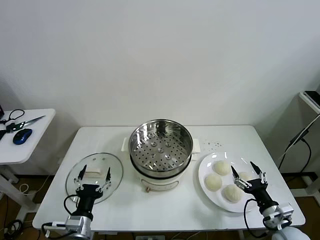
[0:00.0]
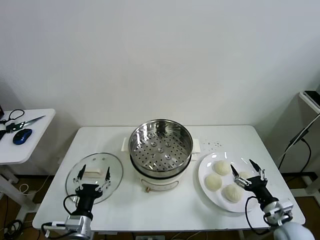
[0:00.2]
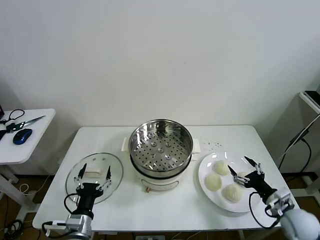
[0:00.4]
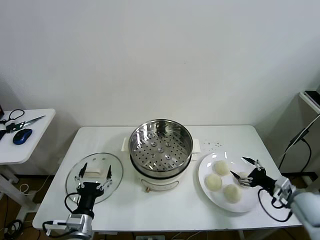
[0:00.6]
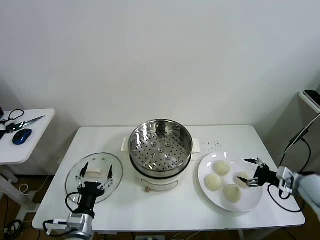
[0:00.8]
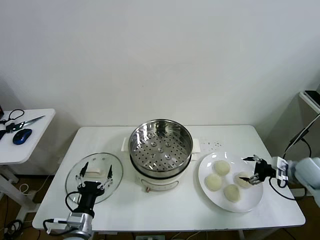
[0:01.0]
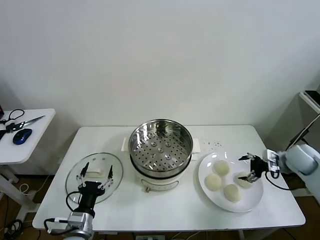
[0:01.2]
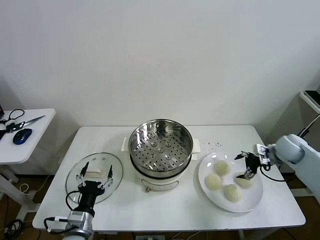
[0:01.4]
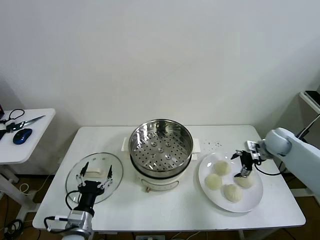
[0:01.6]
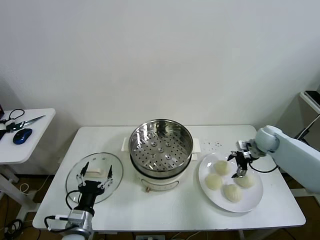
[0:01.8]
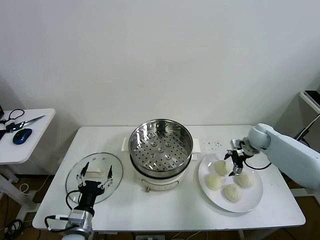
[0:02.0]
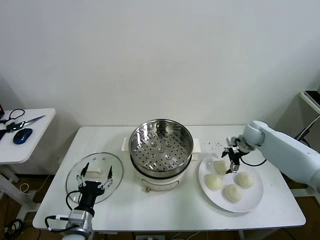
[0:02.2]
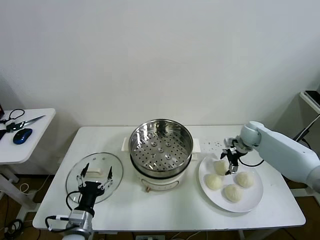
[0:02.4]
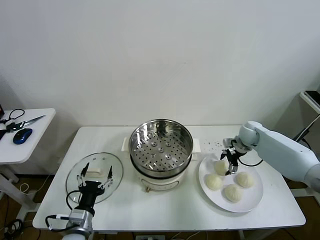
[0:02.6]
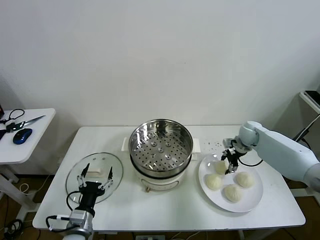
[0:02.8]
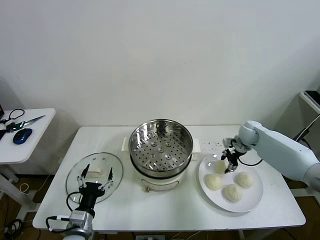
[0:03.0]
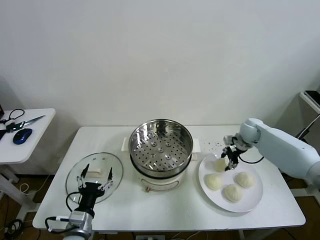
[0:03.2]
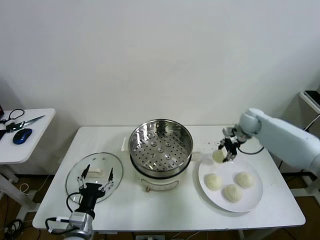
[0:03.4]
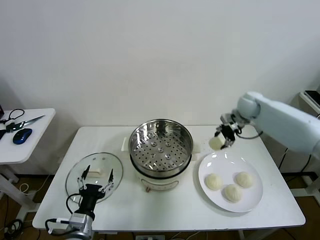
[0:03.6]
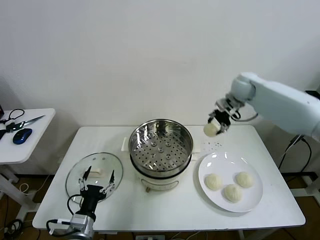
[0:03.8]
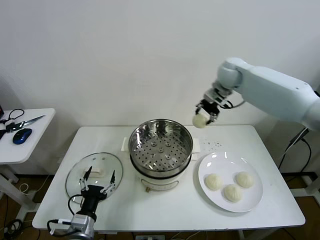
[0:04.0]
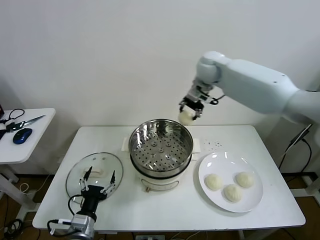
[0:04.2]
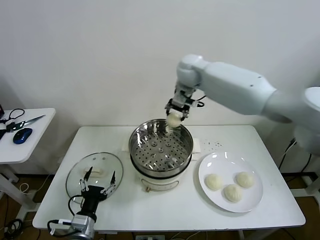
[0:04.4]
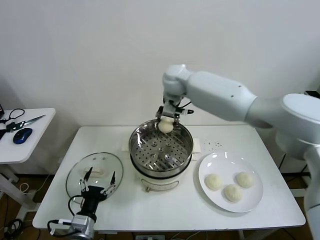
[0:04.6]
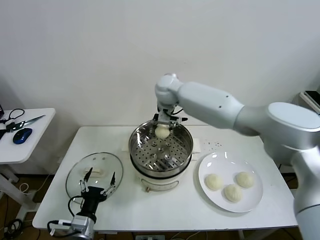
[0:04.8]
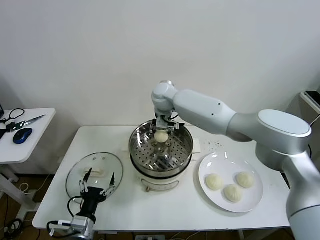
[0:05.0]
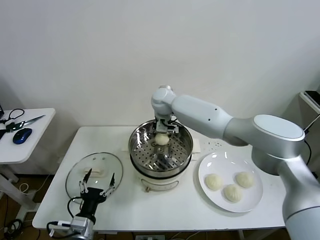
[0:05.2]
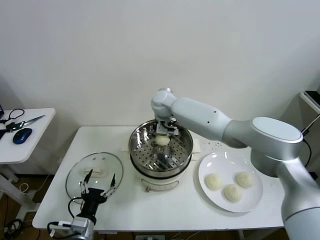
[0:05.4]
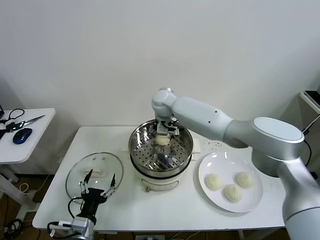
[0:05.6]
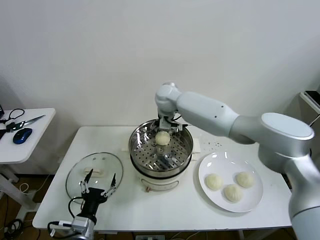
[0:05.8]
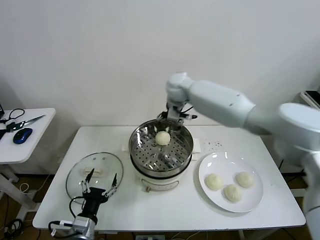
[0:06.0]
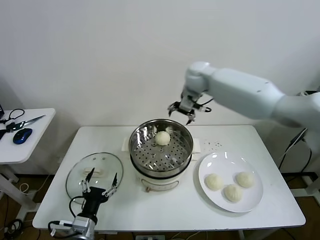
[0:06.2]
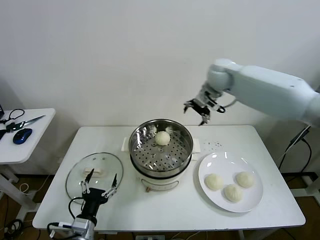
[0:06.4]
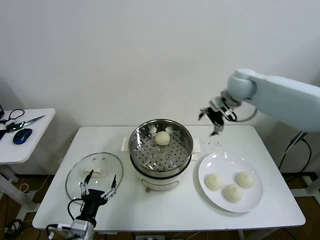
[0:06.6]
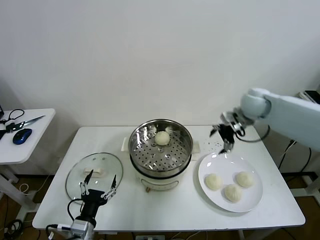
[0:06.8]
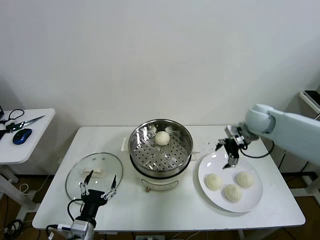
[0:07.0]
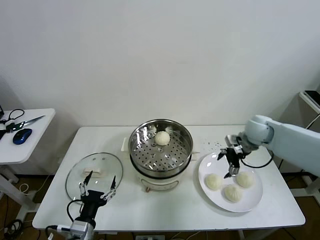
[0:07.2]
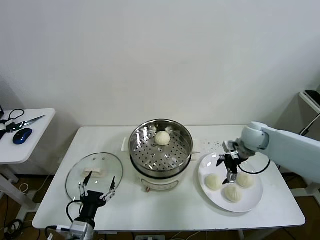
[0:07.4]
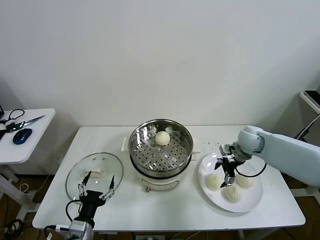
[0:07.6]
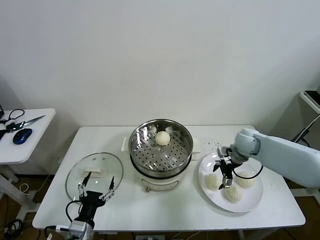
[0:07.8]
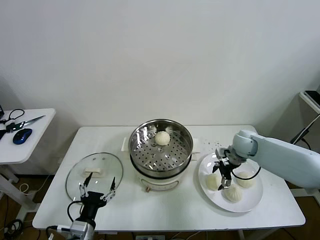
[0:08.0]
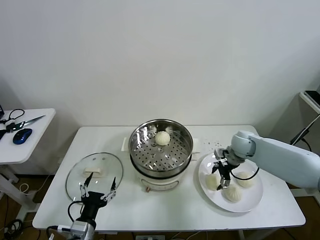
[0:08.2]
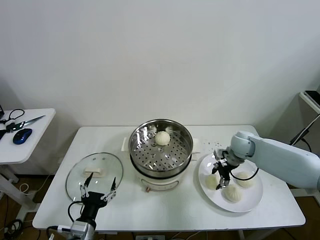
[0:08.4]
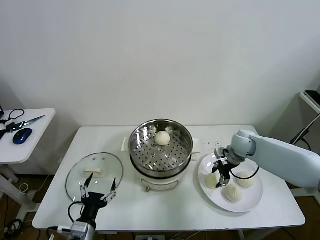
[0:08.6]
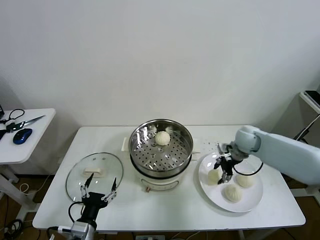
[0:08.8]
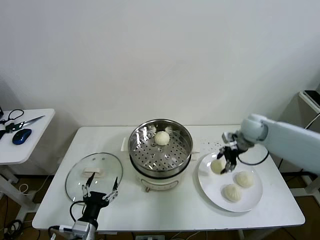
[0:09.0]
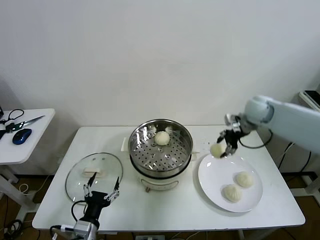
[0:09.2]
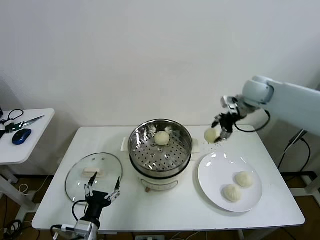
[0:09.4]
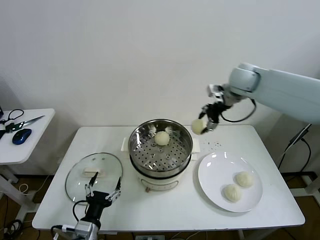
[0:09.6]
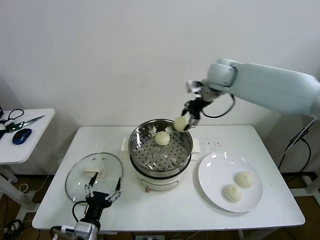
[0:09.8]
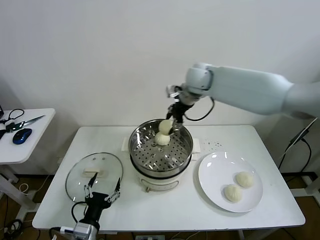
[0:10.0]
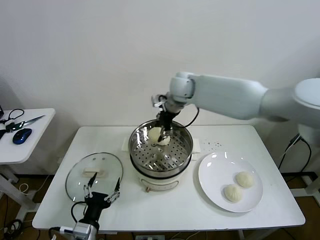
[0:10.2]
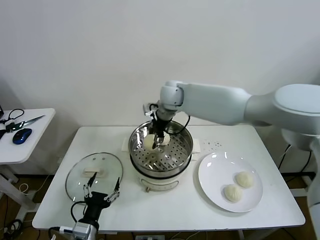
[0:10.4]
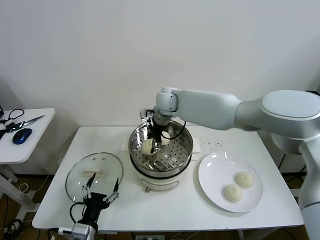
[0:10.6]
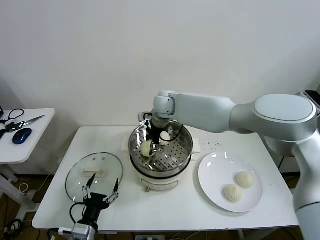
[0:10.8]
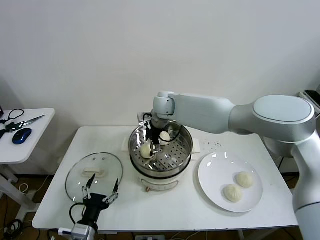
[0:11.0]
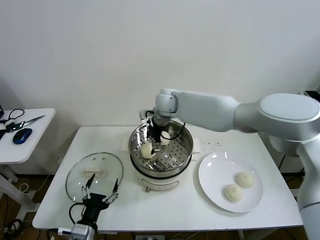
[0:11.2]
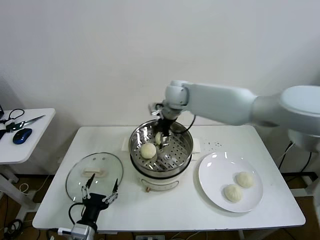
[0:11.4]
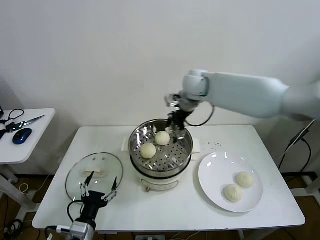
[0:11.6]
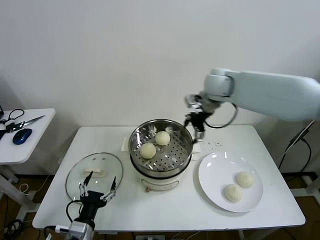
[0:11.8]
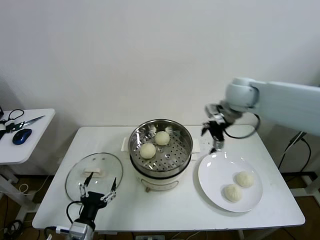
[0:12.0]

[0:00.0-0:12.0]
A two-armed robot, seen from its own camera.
Task of the whole recording: take steamed baozi put them in steamer then cover it.
Step, 0:00.0 to 0:02.8: Grasp the baozi in the plate with right gripper.
Step, 0:03.0 to 0:05.8: Place the baozi on the steamer with right gripper.
Step, 0:06.0 to 0:08.4: Grasp the baozi in the plate with right gripper.
Step, 0:08.6 to 0:11.0: Place the baozi on the steamer with right gripper.
0:01.6 to 0:03.0: The right gripper moves to the left and forward, approximately 10 cm, and closes.
0:03.0 to 0:04.4: The right gripper heads to the left and upward, covering about 40 cm.
0:04.4 to 0:06.0: The right gripper reaches roughly 10 cm downward, then returns, and opens up.
0:06.0 to 0:07.6: The right gripper shifts roughly 30 cm to the right, downward and backward.
0:07.6 to 0:09.0: The right gripper is displaced upward by about 5 cm, and closes.
0:09.0 to 0:10.4: The right gripper goes roughly 30 cm to the left.
0:10.4 to 0:12.0: The right gripper shifts some 25 cm to the right, and opens up.

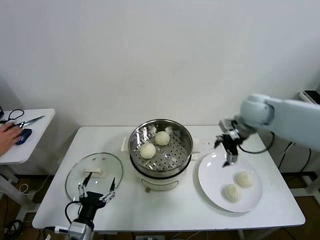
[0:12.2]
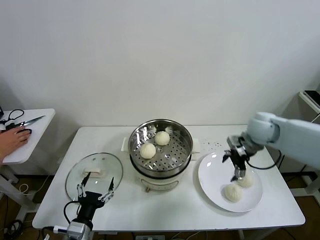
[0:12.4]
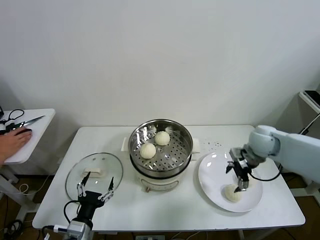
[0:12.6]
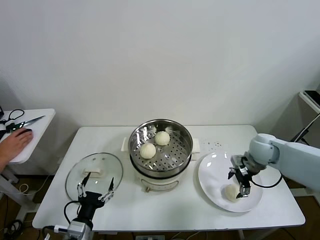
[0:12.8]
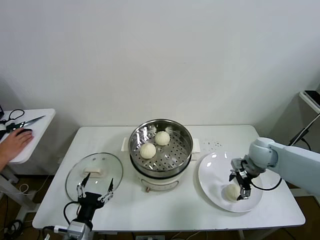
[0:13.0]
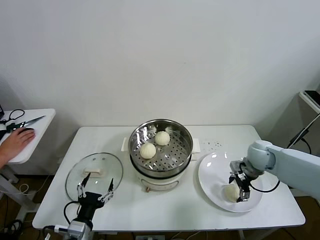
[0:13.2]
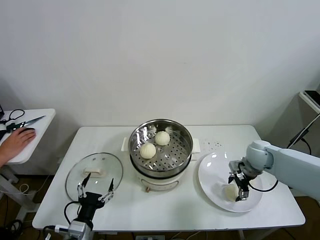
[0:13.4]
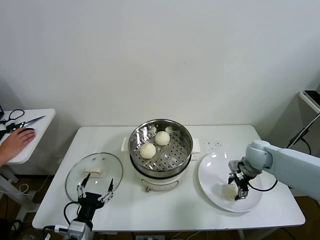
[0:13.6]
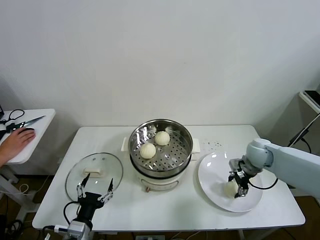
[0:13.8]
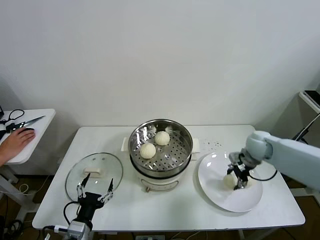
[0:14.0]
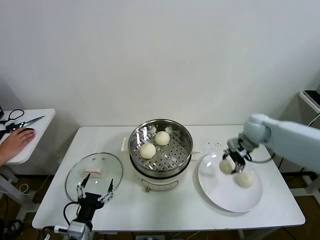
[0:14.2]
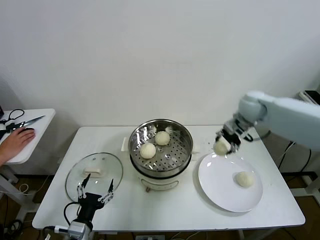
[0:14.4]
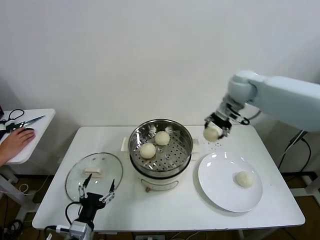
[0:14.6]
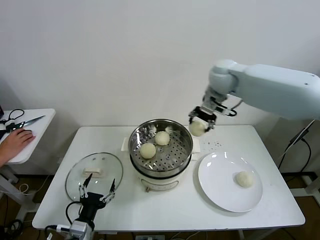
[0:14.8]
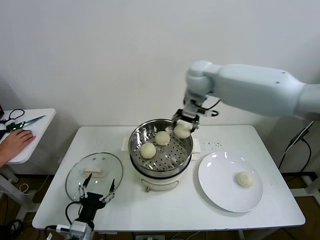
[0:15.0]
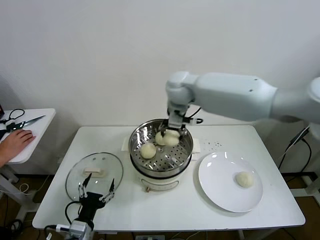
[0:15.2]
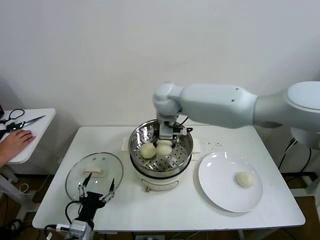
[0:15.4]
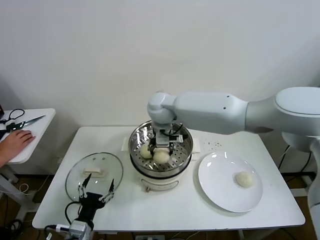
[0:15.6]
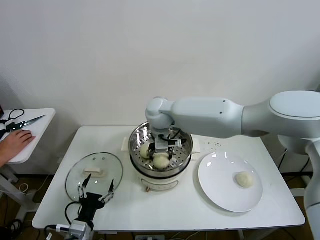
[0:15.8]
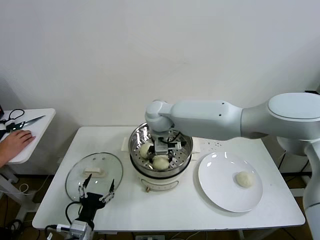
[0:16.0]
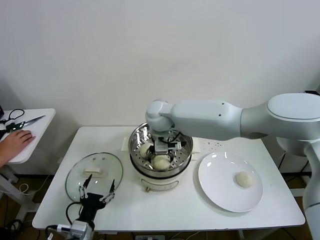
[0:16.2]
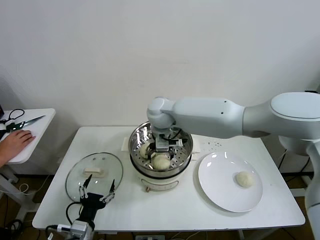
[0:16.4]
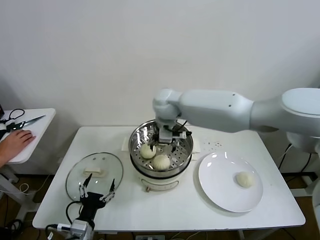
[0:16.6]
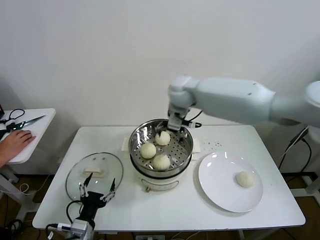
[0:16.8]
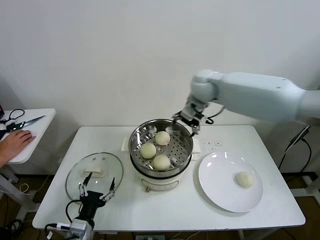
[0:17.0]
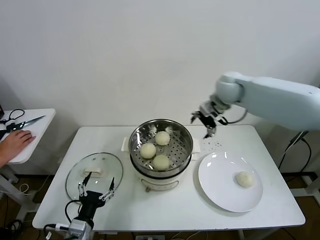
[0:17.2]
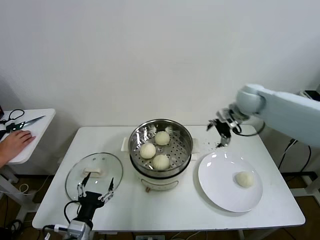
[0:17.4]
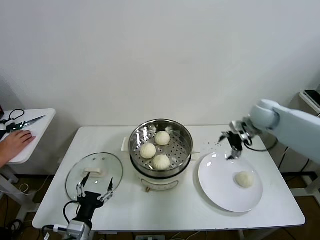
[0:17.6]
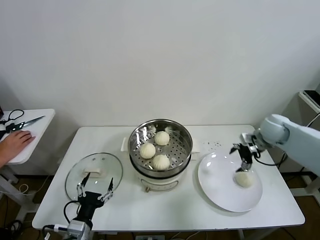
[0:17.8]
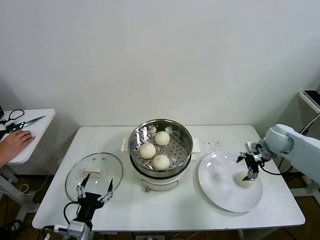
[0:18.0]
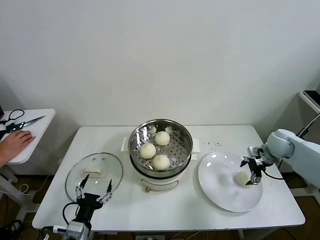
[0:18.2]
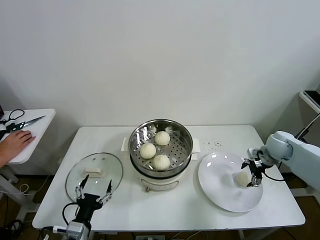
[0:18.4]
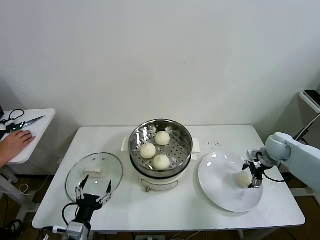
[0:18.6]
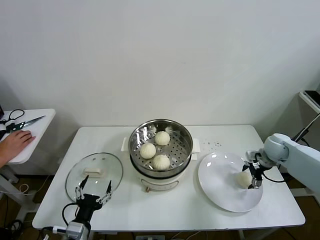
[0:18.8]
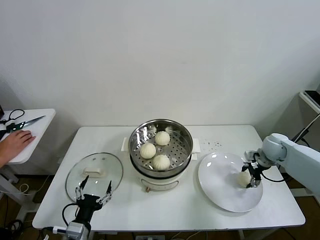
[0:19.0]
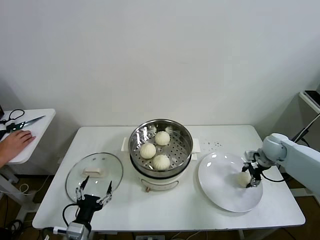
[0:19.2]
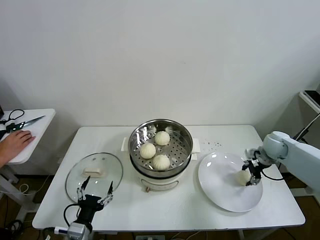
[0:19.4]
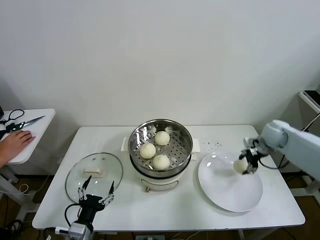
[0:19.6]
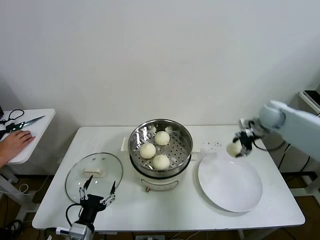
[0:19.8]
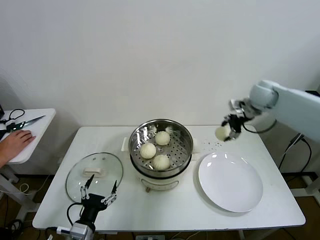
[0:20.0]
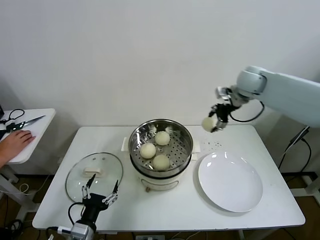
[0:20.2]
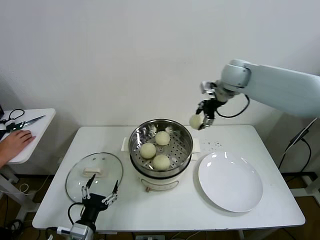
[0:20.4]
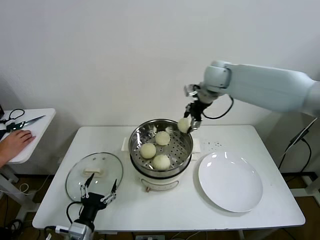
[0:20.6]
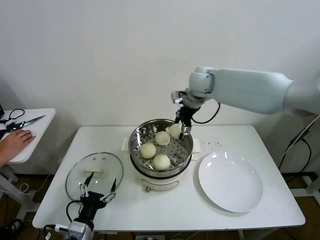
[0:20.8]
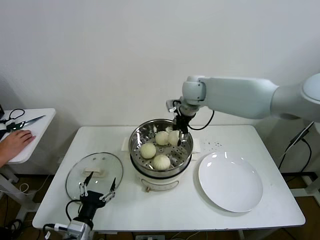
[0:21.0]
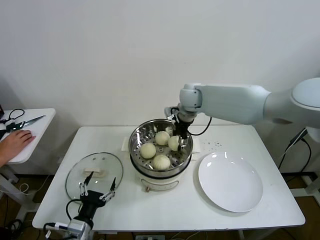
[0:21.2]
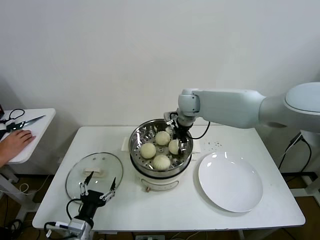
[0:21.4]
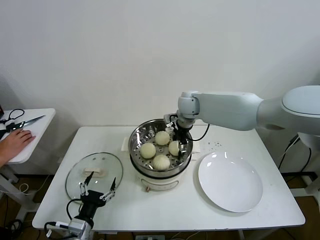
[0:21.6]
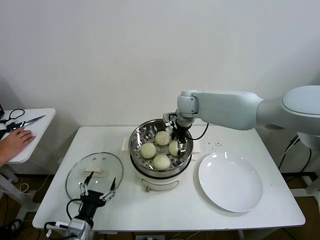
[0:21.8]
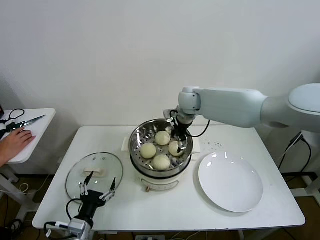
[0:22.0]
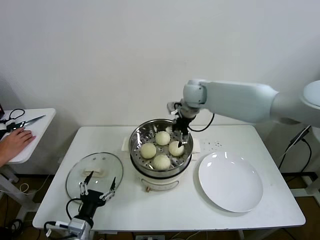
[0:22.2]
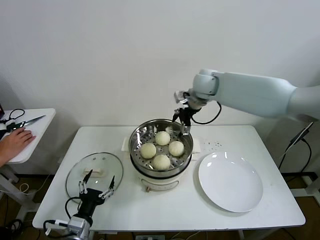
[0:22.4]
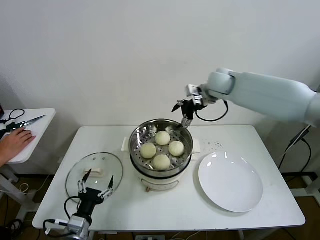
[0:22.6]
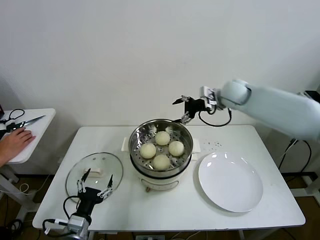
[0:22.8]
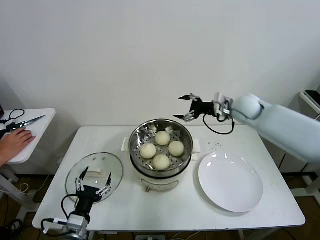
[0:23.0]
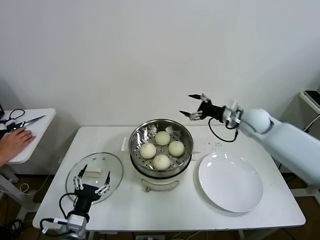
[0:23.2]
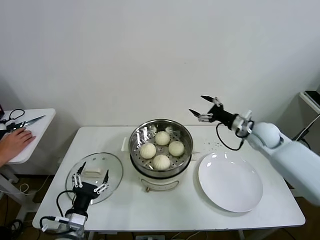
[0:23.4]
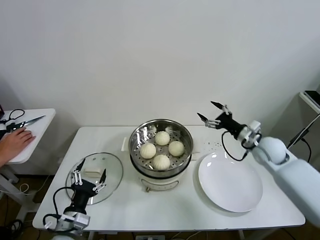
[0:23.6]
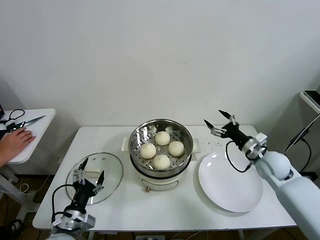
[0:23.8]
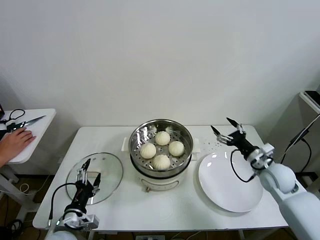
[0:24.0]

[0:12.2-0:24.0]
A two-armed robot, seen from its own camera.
Task of the whole recording: take steamed baozi put them in steamer then cover it.
Step, 0:12.2 to 0:13.6: Grasp the baozi in the plate with right gripper.
Step, 0:13.8 to 0:16.4: Place the baozi on the steamer with right gripper.
Step, 0:16.6 to 0:19.2: Grasp the baozi in the plate with right gripper.
Step, 0:19.4 to 0:21.8: Place the baozi on the steamer with right gripper.
0:12.2 to 0:13.6: The right gripper heads downward, covering some 15 cm, and closes.
0:13.6 to 0:15.2: The right gripper is displaced to the left and upward by roughly 40 cm.
0:15.2 to 0:16.6: The right gripper opens its fingers.
0:16.6 to 0:18.2: The right gripper goes about 40 cm to the right.
0:18.2 to 0:19.6: The right gripper closes.
0:19.6 to 0:21.0: The right gripper goes roughly 35 cm to the left and upward.
0:21.0 to 0:22.6: The right gripper goes about 10 cm to the right, and opens.
0:22.6 to 0:24.0: The right gripper moves downward, backward and to the right, roughly 35 cm.
